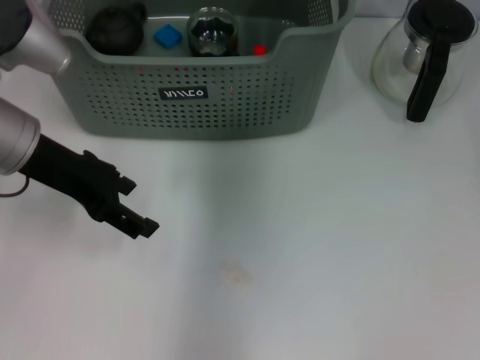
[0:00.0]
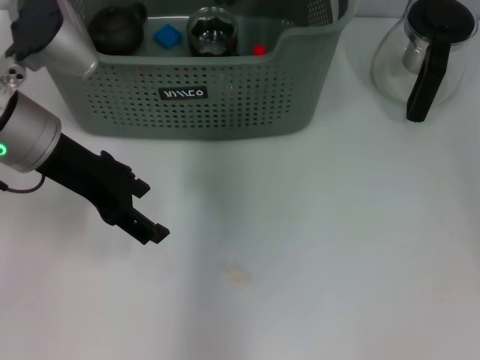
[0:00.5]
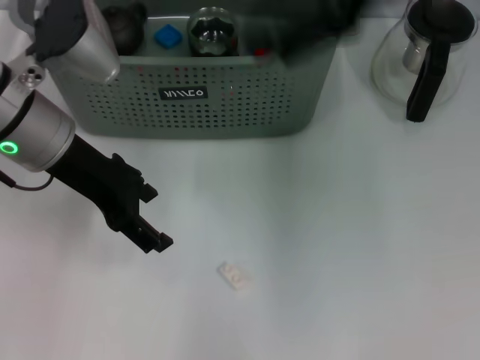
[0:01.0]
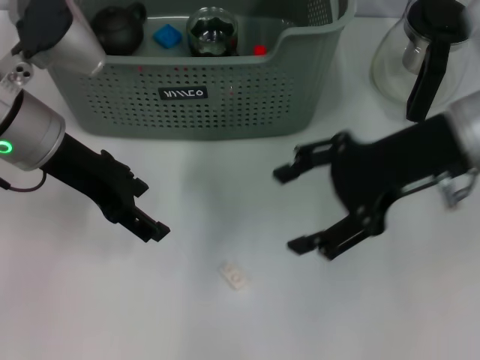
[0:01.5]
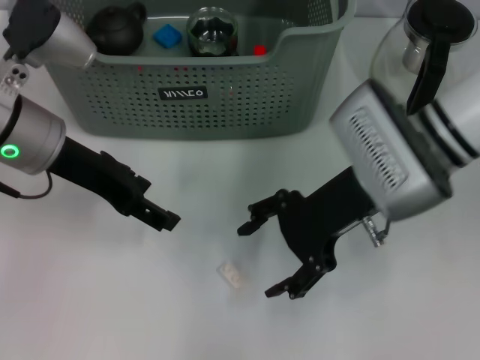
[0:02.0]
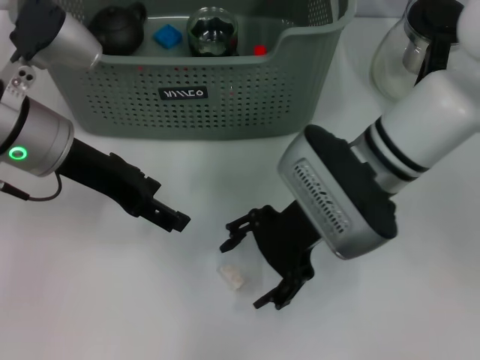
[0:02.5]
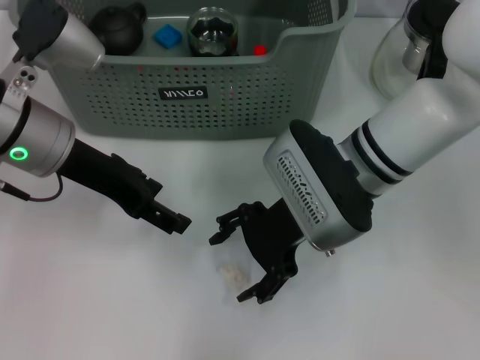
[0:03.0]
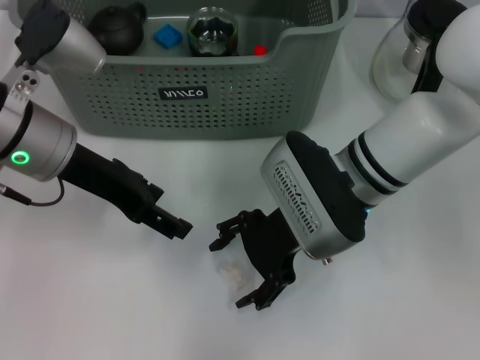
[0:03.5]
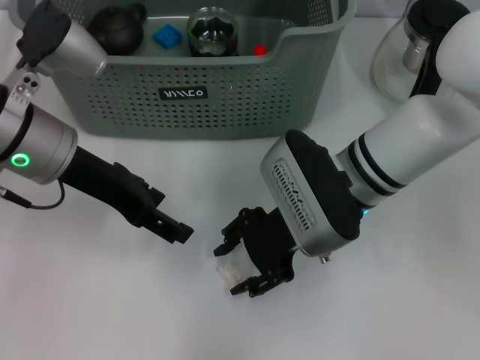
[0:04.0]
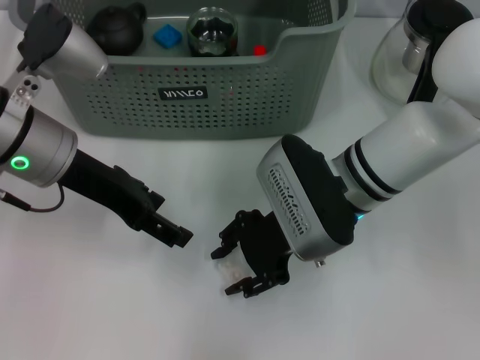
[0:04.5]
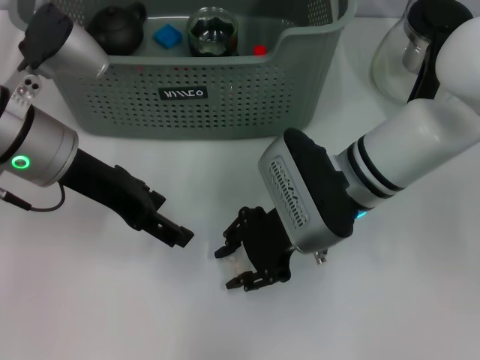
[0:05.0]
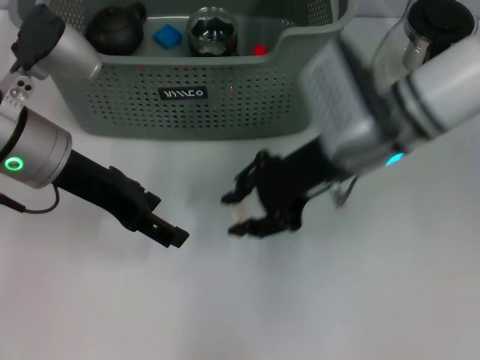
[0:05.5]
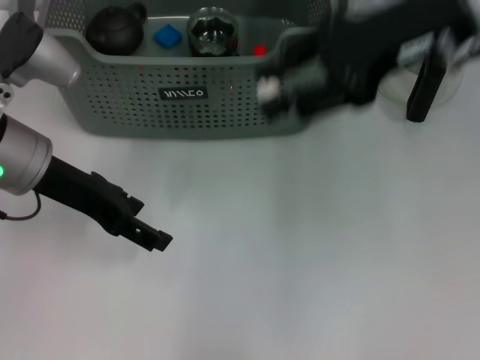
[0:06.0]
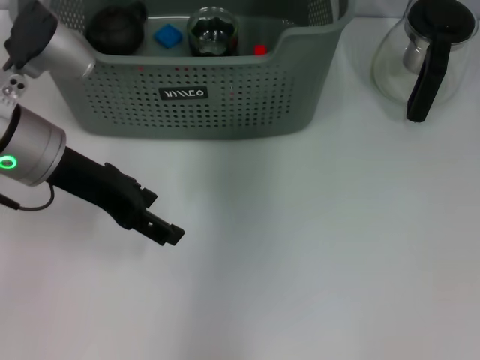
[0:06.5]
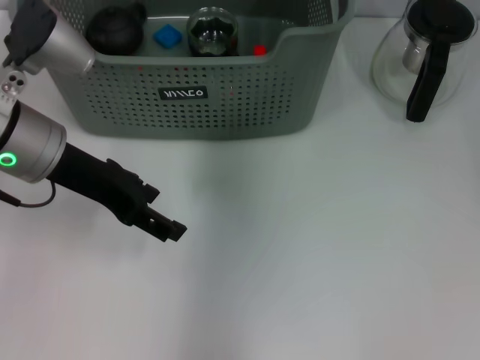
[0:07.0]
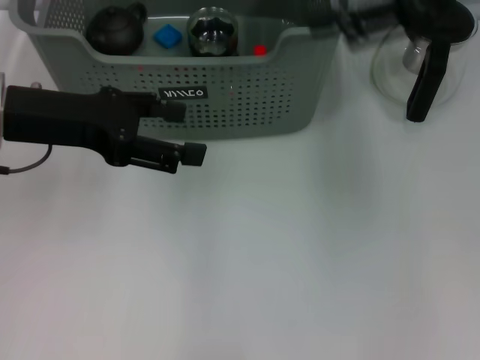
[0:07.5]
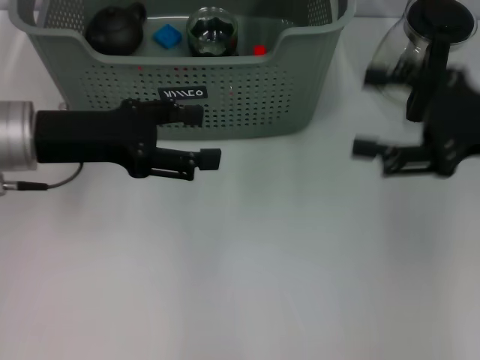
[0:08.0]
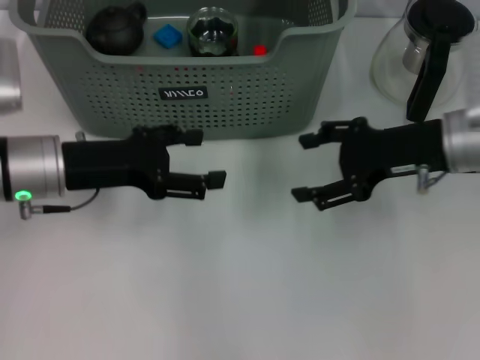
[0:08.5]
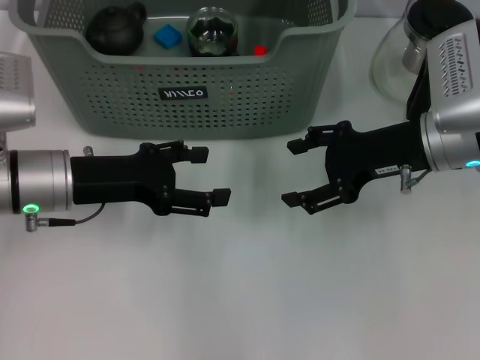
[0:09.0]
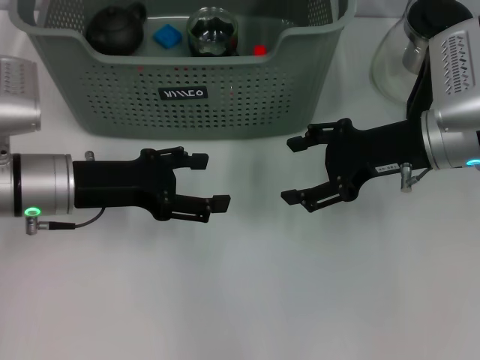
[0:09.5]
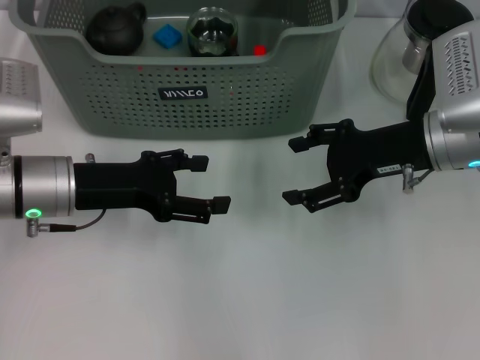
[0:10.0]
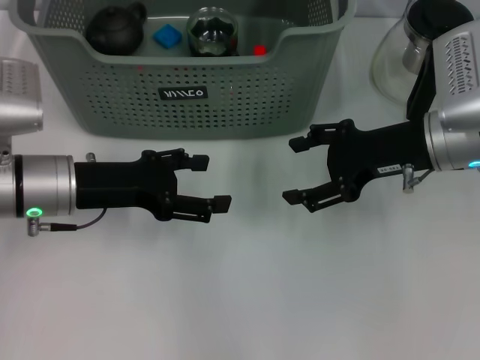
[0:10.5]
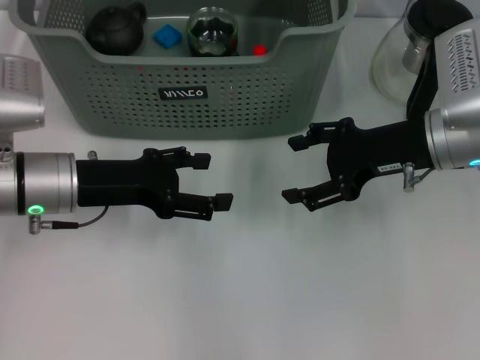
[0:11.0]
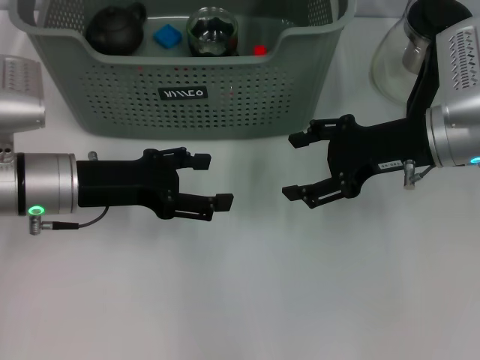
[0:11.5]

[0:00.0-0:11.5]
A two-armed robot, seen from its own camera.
Task of the whole recording: pick up the teacup on the table and place it into the storage bin, pick up the block on the table and place it into the storage bin.
Step, 0:01.0 to 0:05.0: Grasp the white block with right gripper.
Step, 0:05.5 to 0:07.0: Place the white block in the storage box with right gripper.
0:00.0 to 0:02.0: The right gripper shifts roughly 20 cm downward and backward, and opens up.
0:02.0 to 0:04.0: The right gripper ends up approximately 5 cm from where it was.
0:04.0 to 0:06.0: The right gripper shifts approximately 20 cm upward and to the right, and closes up.
0:06.0 to 0:07.5: The right gripper travels to the right by roughly 5 cm, and opens up.
0:07.5 to 0:09.5: The right gripper goes roughly 15 cm downward. Meanwhile the left gripper goes some 10 cm downward.
0:09.5 to 0:11.5: The two grippers keep their place.
